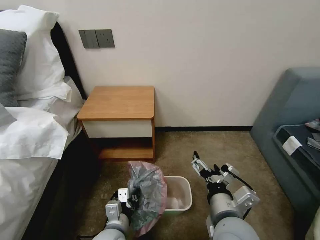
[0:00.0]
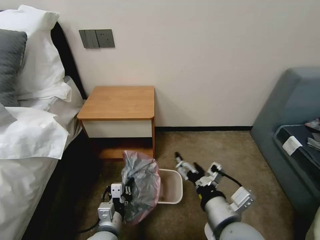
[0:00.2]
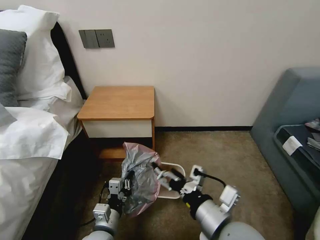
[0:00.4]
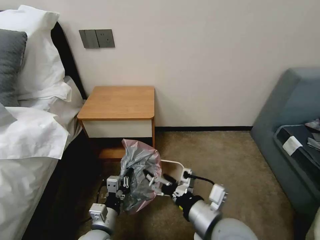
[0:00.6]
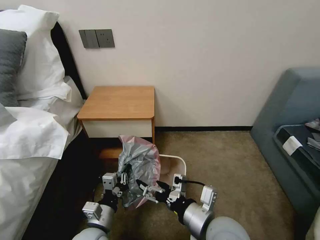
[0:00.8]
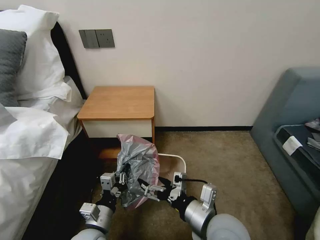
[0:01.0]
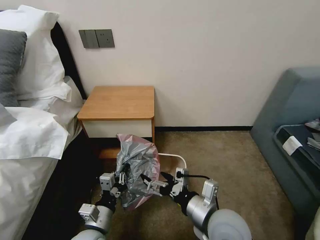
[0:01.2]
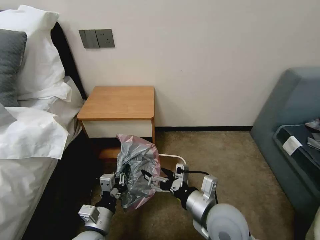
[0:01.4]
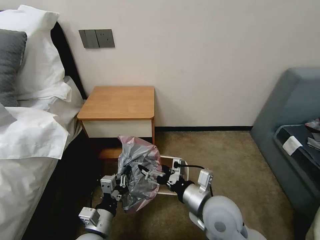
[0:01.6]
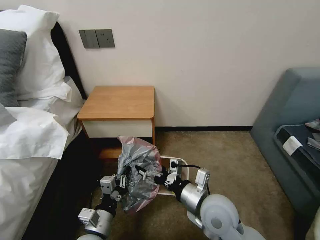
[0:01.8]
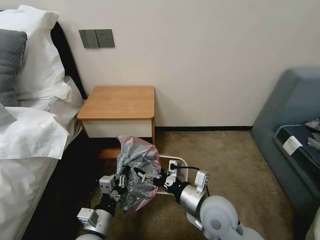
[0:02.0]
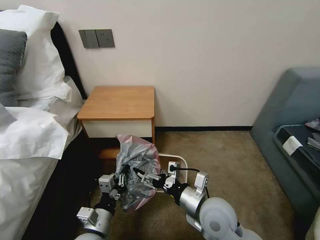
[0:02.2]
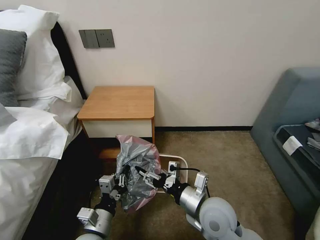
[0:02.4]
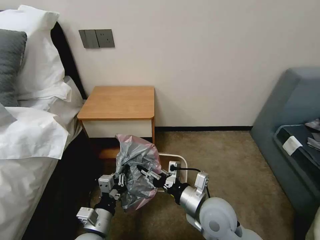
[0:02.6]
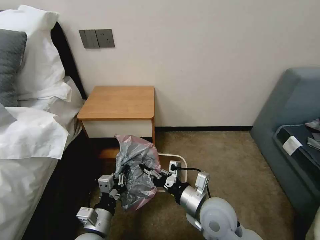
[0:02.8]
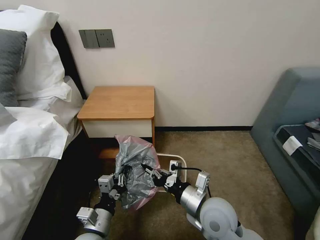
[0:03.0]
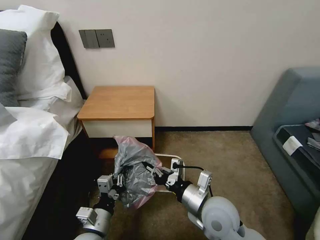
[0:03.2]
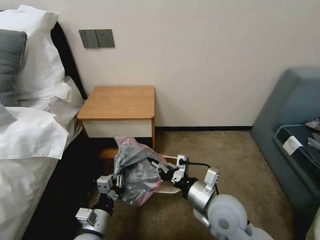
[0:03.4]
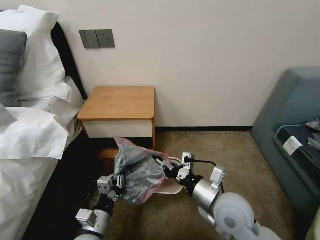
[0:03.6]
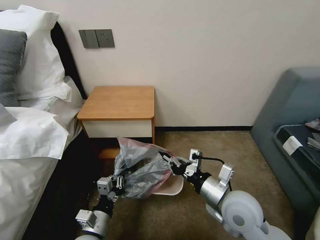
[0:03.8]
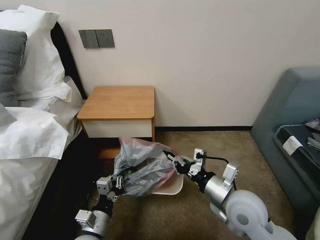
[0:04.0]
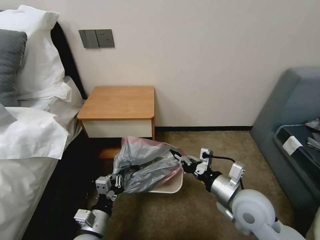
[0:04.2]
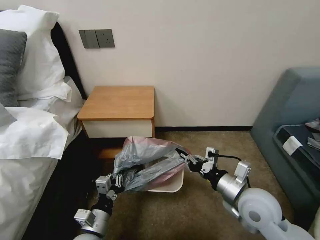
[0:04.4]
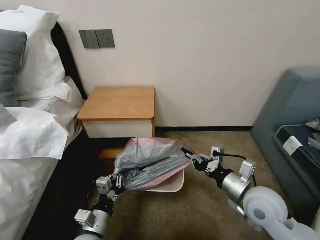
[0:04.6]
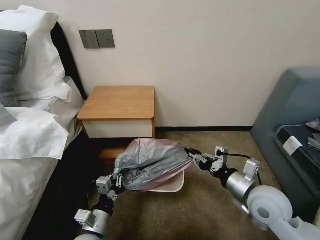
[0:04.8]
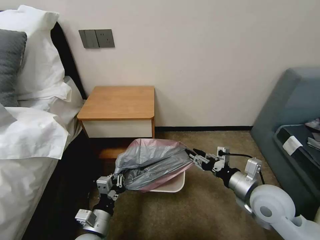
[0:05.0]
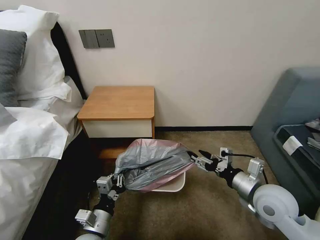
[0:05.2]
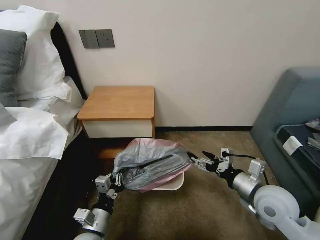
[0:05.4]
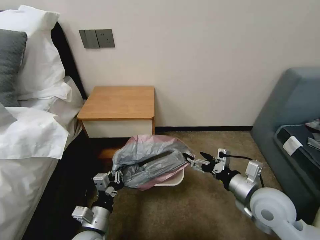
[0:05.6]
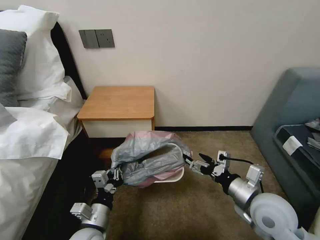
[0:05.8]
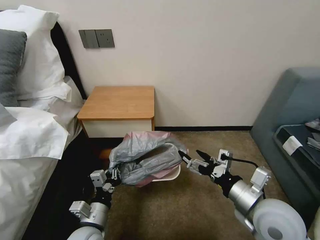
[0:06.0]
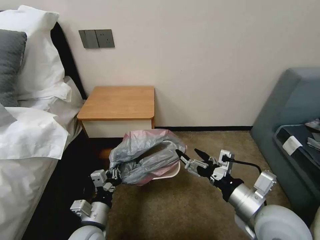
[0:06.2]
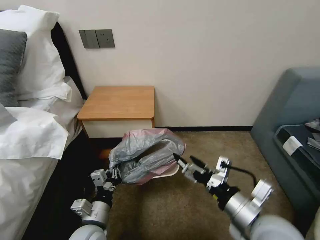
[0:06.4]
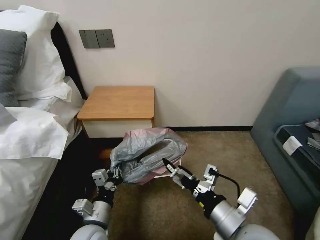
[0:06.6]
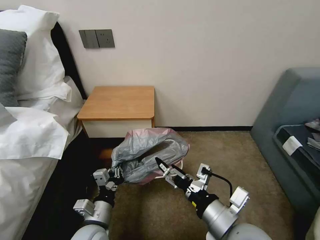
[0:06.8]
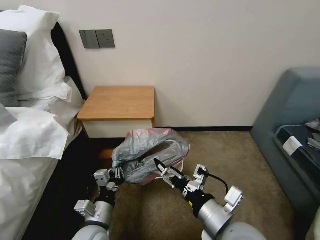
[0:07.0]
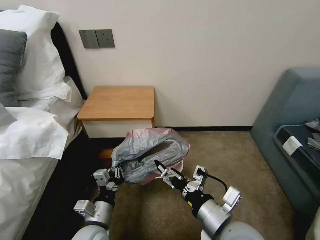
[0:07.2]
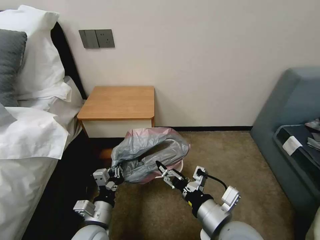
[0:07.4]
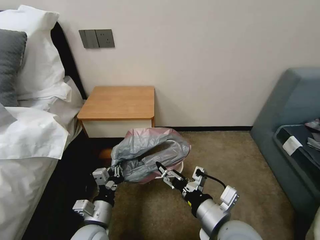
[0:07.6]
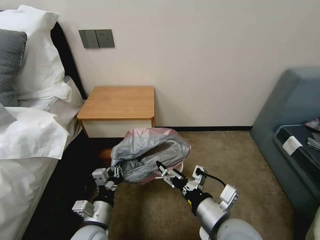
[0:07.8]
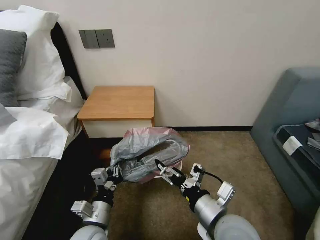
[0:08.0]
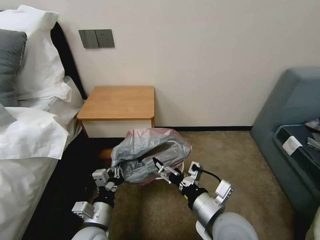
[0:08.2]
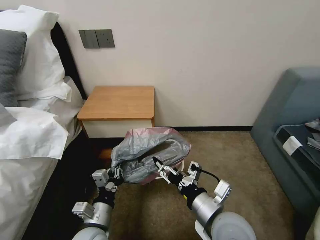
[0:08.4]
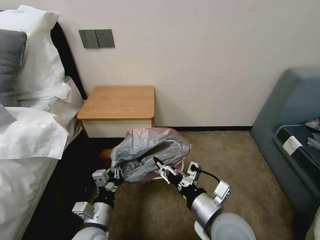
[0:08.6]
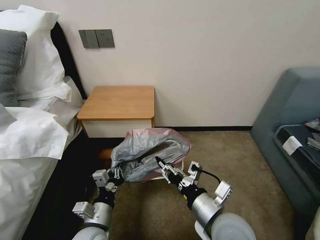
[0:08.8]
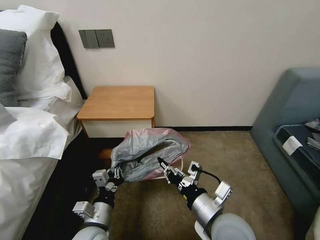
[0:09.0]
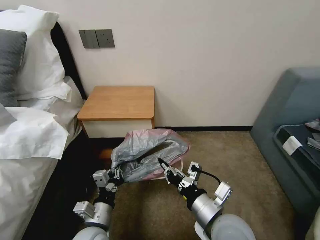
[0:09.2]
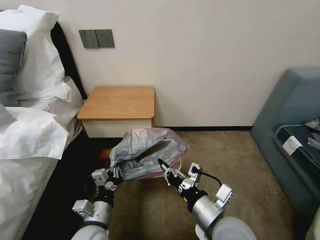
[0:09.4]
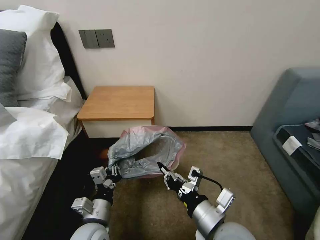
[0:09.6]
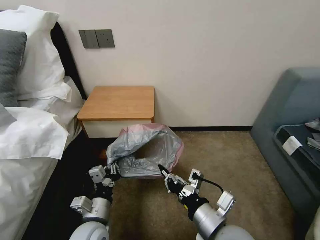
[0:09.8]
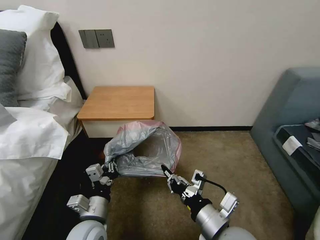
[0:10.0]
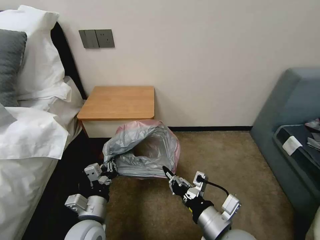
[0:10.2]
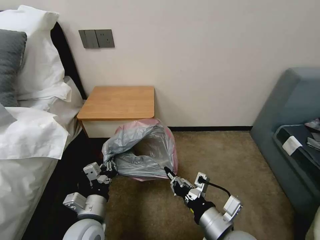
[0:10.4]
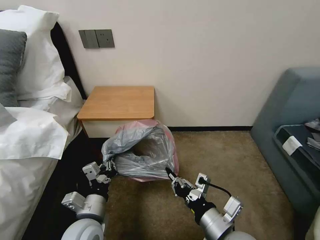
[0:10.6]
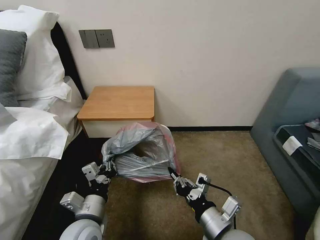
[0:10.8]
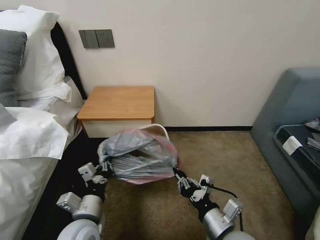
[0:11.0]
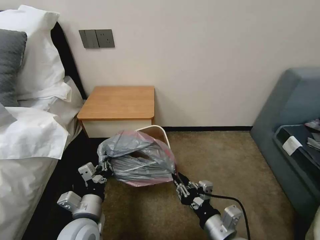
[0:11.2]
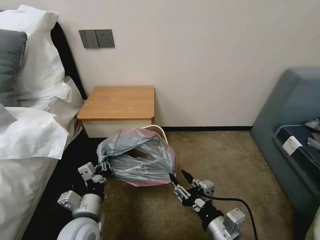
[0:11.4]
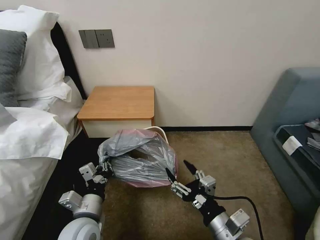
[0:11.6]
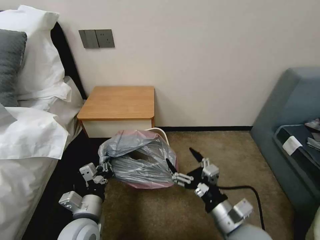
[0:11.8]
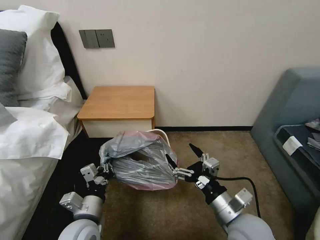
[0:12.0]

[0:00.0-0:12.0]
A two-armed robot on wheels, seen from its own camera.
Task of the whole recording: Pick up the garbage bag from the table and place it over the trash can.
0:00.0 to 0:01.6: The right gripper moves forward, about 5 cm, while the left gripper shifts approximately 5 cm to the left.
0:01.6 to 0:03.0: The right gripper closes.
0:03.0 to 0:04.4: The right gripper is displaced to the right by some 10 cm.
0:04.4 to 0:06.0: The right gripper opens up.
0:06.0 to 0:07.6: The right gripper goes some 10 cm to the left.
0:07.6 to 0:09.0: The right gripper closes up.
0:09.0 to 0:10.4: The grippers stay close to where they were, moving slightly.
0:10.4 to 0:12.0: The right gripper shifts by about 5 cm, and opens.

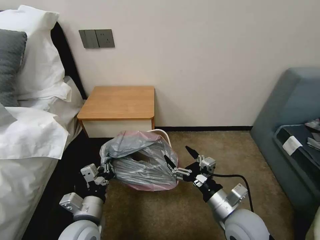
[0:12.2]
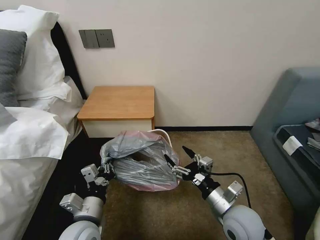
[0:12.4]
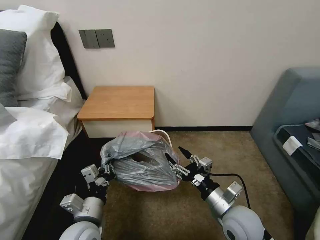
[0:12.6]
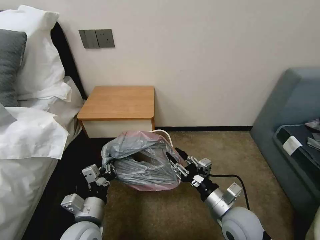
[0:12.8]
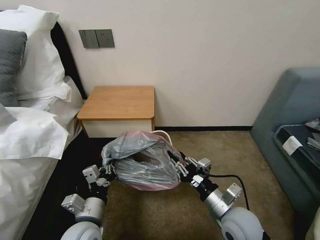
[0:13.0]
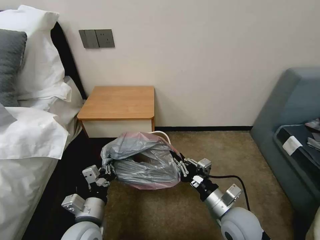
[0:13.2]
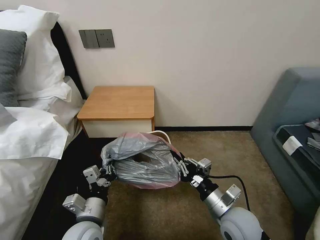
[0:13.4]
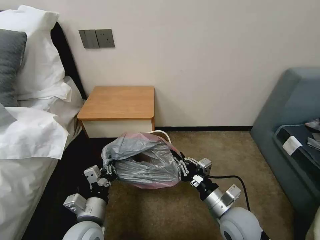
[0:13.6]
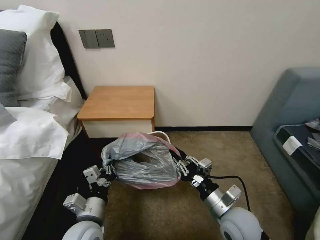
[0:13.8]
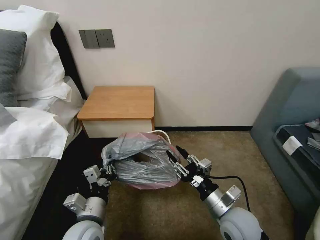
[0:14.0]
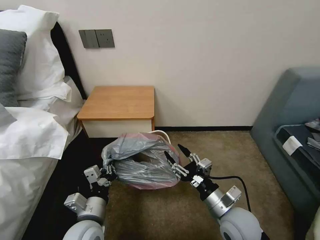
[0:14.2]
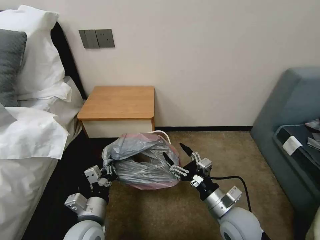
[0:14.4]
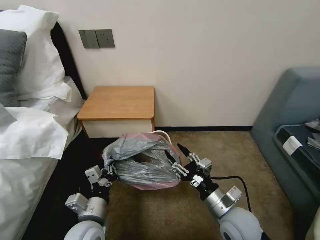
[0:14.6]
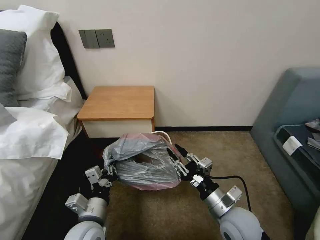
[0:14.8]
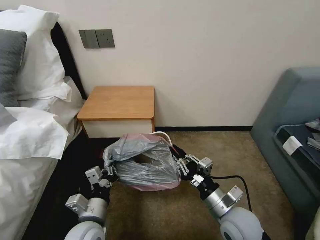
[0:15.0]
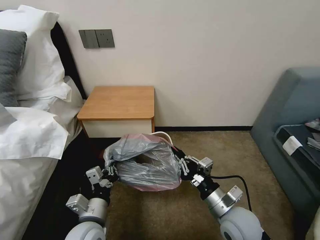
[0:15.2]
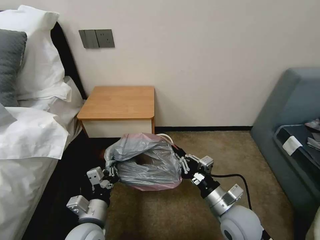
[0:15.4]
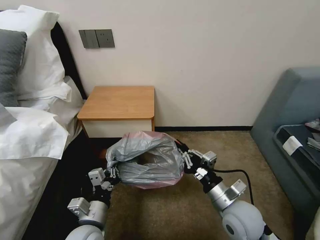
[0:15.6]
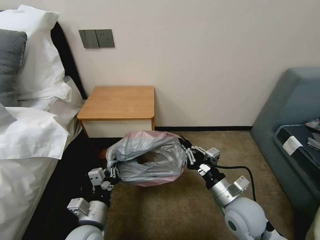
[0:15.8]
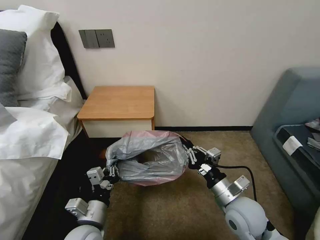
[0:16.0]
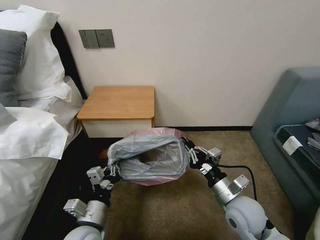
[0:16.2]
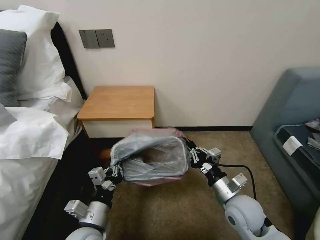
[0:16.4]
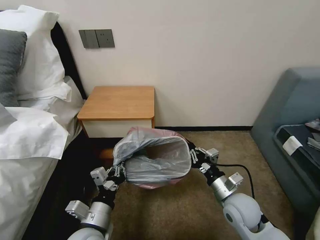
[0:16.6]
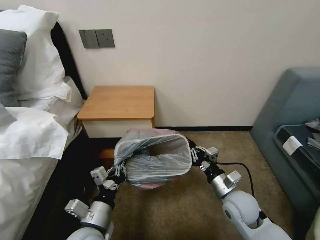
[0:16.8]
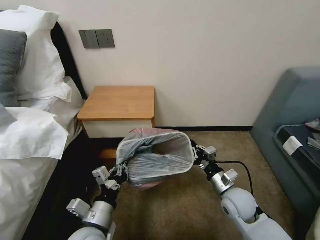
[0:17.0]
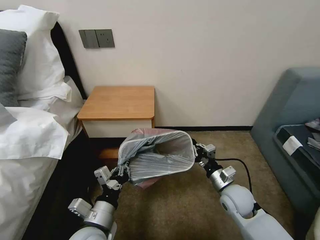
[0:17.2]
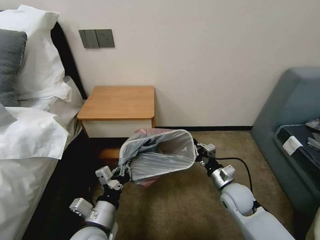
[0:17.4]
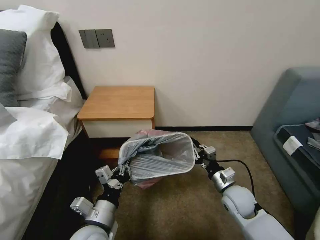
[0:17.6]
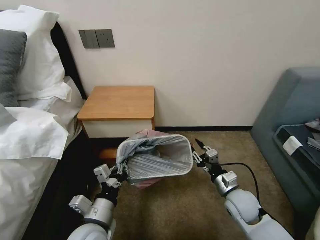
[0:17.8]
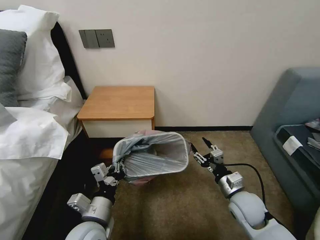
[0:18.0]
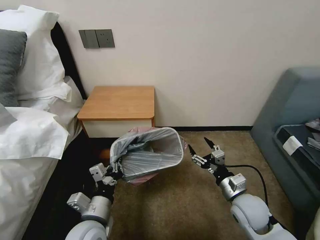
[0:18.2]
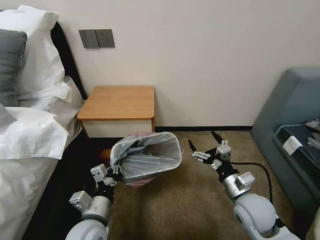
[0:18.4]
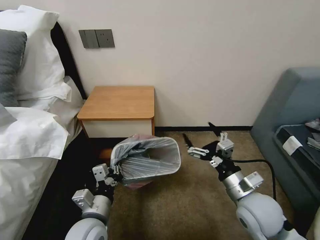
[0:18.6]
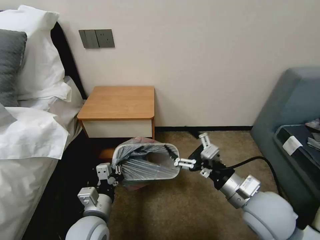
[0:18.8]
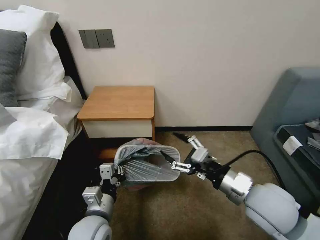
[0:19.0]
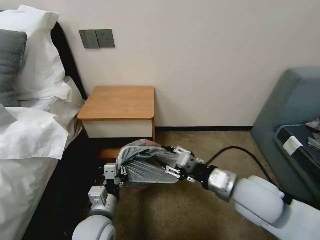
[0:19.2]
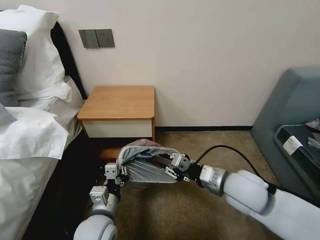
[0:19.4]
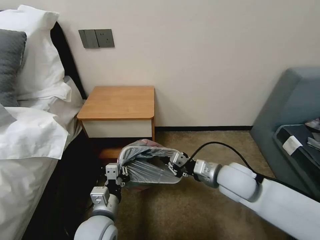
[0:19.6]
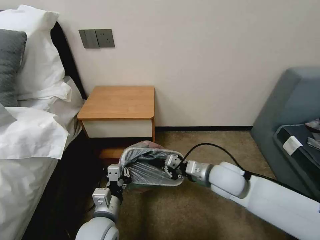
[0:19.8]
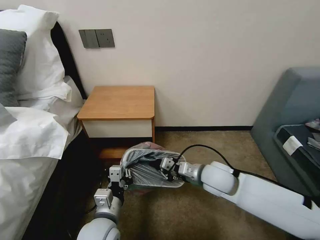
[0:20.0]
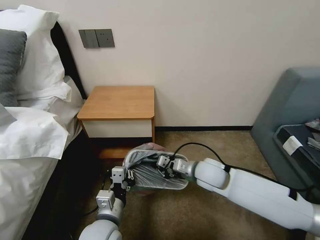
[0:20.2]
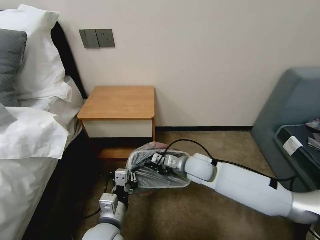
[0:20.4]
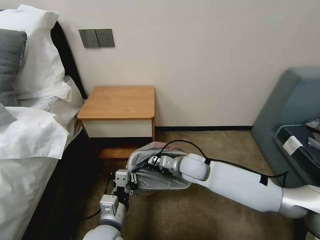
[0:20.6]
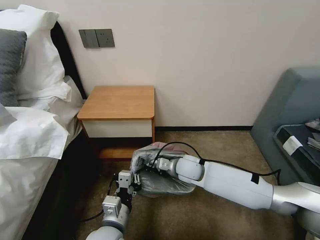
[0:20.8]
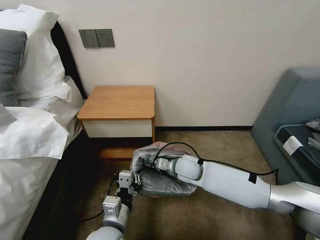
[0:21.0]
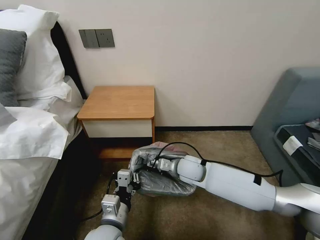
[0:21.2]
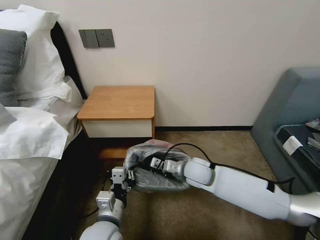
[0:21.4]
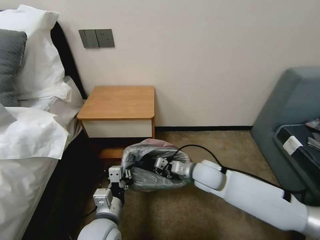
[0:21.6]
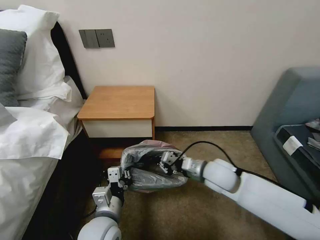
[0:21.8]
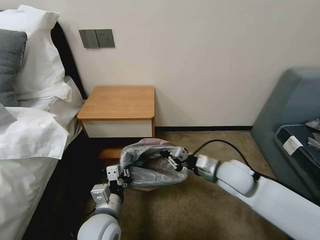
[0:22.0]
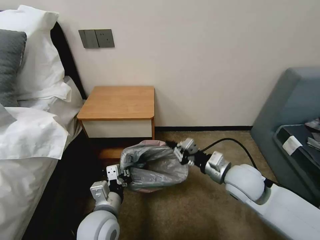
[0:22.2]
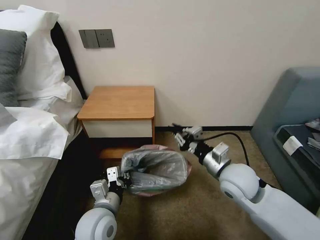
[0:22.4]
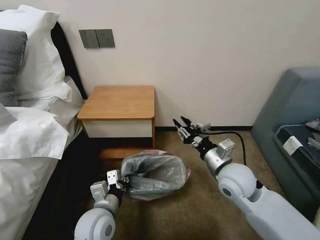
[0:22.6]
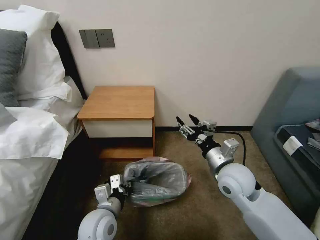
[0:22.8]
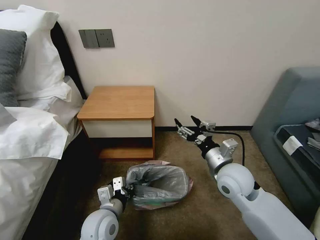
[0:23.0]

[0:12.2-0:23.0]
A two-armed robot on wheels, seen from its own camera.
Task of the whole recording: Pick up the garbage bag from the table and place it over the trash can.
0:12.2 to 0:13.8: The right gripper closes its fingers.
0:13.8 to 0:15.2: The right gripper opens, then closes again.
0:15.2 to 0:16.8: The right gripper travels forward by some 5 cm.
0:16.8 to 0:18.4: The right gripper opens.
0:18.4 to 0:20.0: The right gripper heads to the left and forward, covering some 10 cm, moves about 10 cm upward and comes back, and closes.
0:21.4 to 0:23.0: The left gripper shifts by approximately 5 cm; the right gripper goes some 10 cm to the right, upward and backward, and opens.
